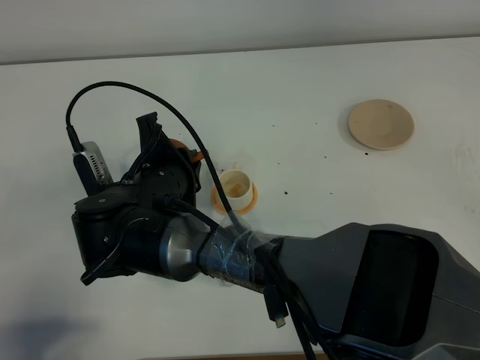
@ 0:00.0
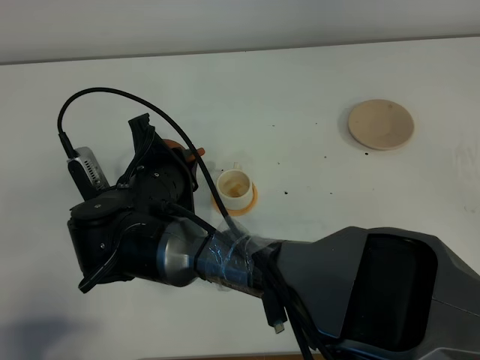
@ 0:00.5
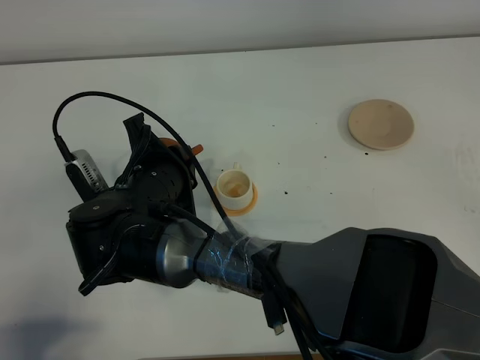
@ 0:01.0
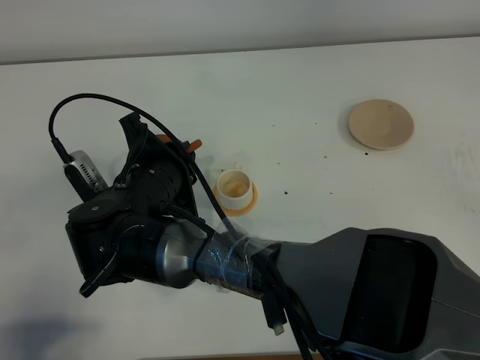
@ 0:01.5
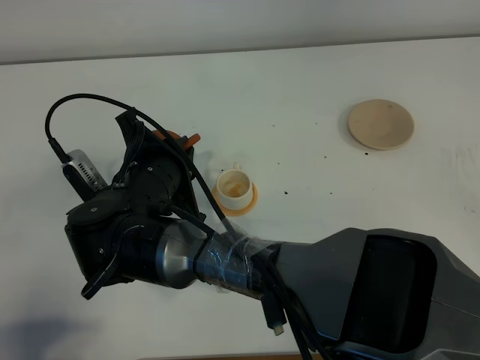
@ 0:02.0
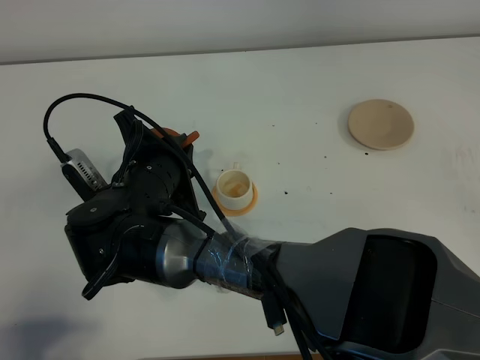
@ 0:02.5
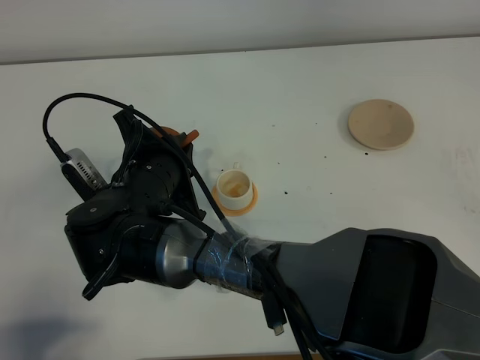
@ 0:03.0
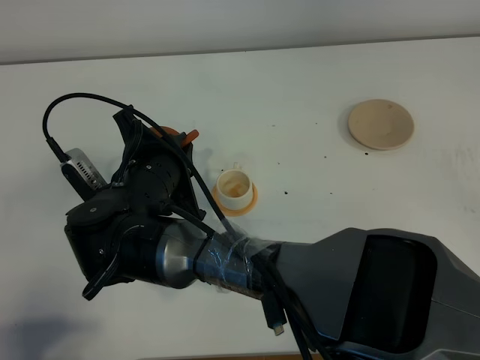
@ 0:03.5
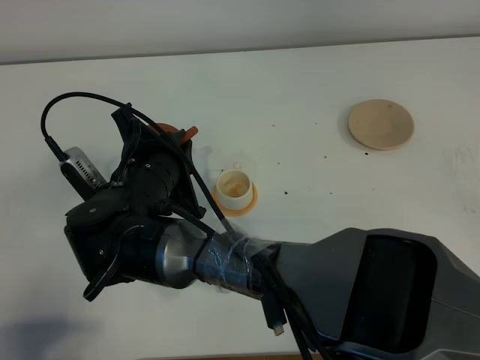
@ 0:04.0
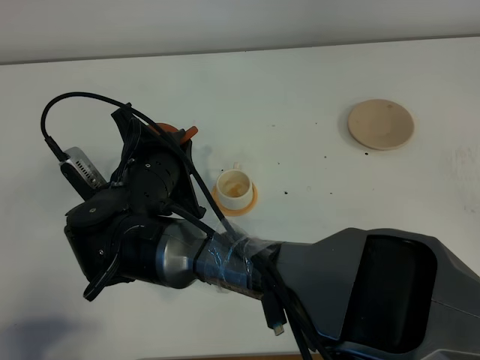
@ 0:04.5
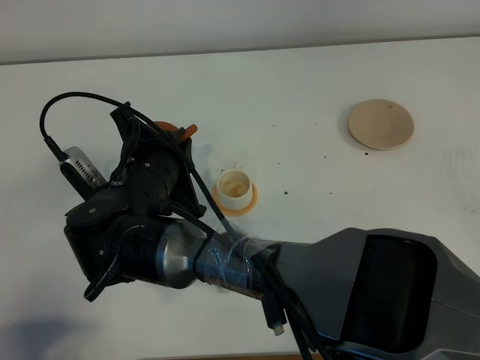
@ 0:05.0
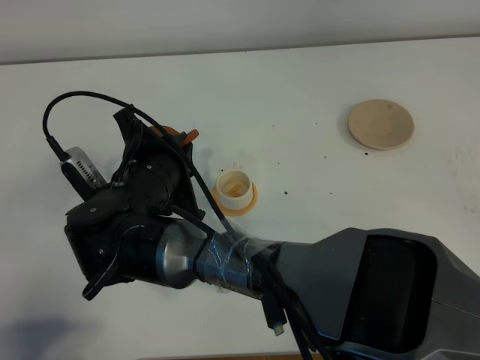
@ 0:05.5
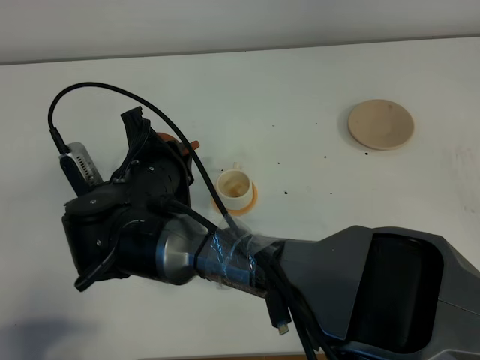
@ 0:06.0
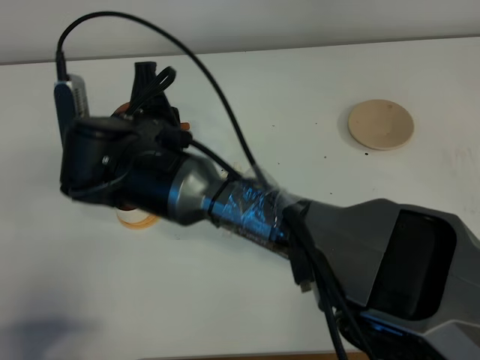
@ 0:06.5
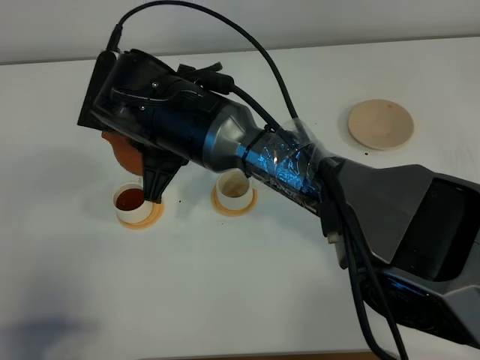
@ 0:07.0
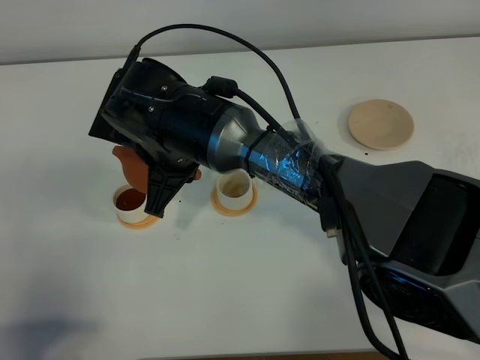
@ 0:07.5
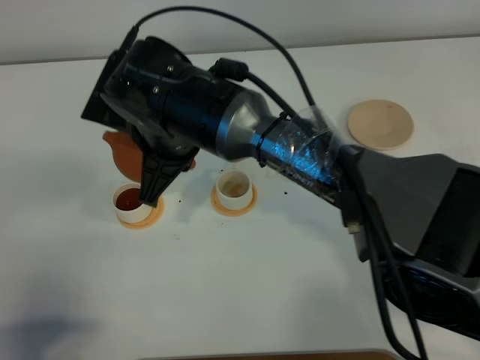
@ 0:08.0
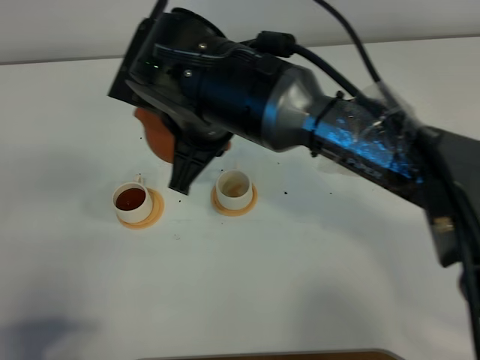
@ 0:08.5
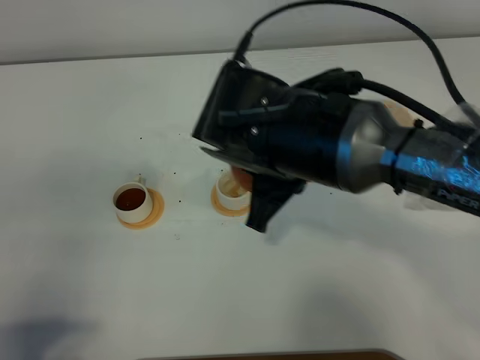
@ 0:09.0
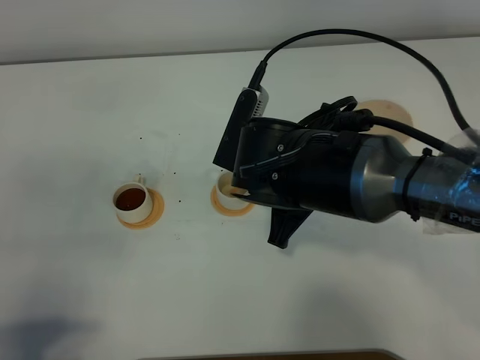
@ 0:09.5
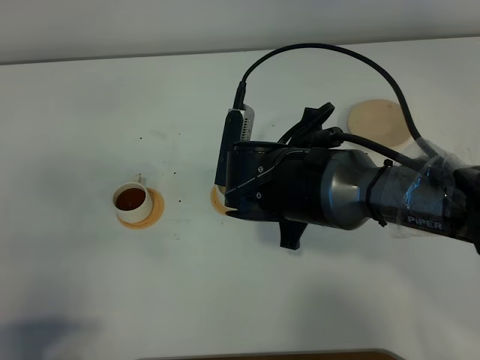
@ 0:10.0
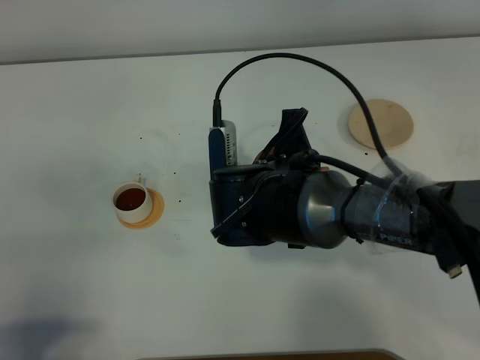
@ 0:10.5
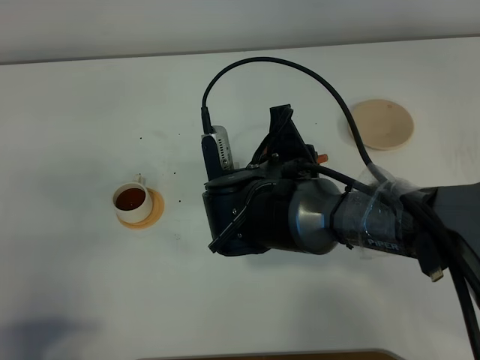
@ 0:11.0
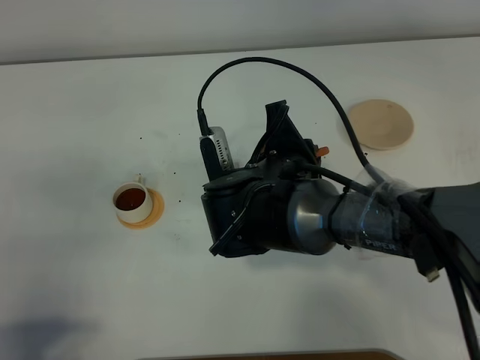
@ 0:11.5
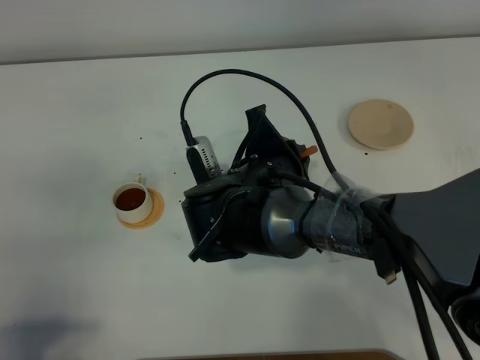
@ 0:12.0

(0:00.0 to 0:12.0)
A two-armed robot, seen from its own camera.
Task of the whole recording: grasp the brown teapot and pour the tea into the two white teacups one by one, put the brown teapot back in its original place.
Step, 0:00.0 - 0:07.0: Pour tea into the teacup with the right gripper.
0:00.0 - 0:02.0: There are only small adjustments of the grippers.
0:02.0 - 0:04.0: Neither gripper changes place.
0:04.0 - 0:06.0: The grippers make only small movements.
0:06.0 - 0:08.0: The right gripper moves upward and forward, approximately 10 cm.
0:08.0 - 0:10.0: The right gripper moves to the right and downward, about 15 cm.

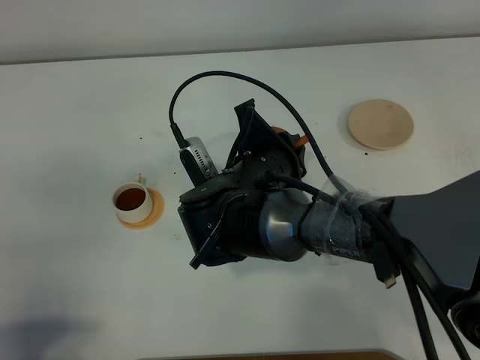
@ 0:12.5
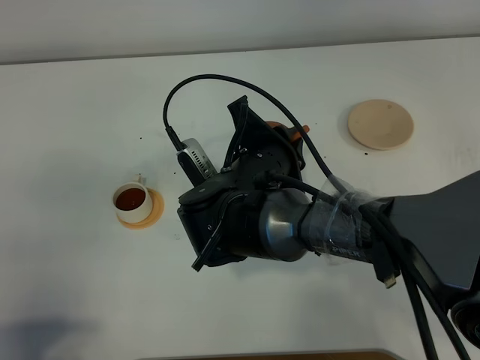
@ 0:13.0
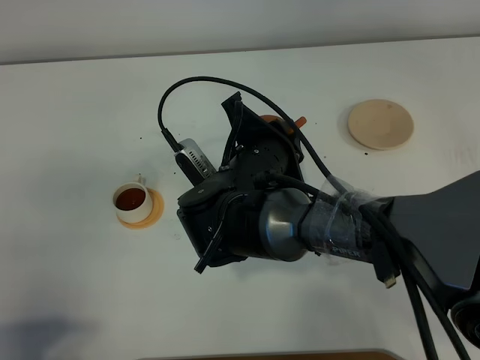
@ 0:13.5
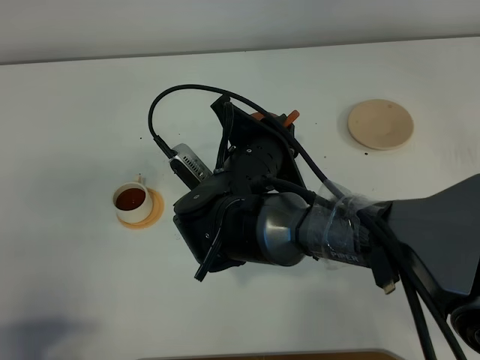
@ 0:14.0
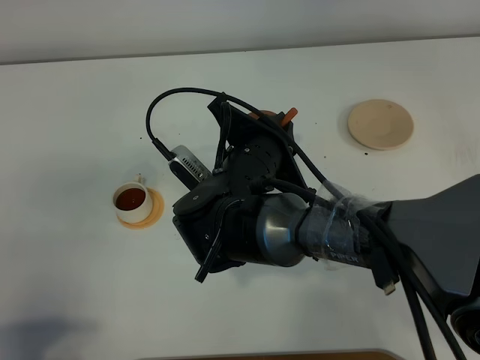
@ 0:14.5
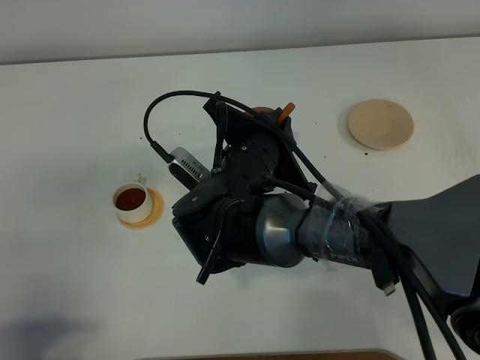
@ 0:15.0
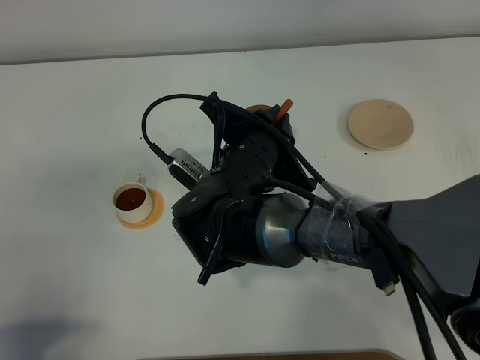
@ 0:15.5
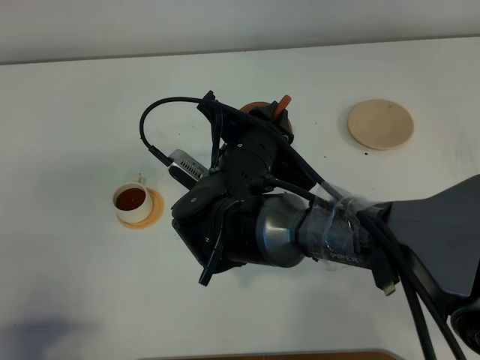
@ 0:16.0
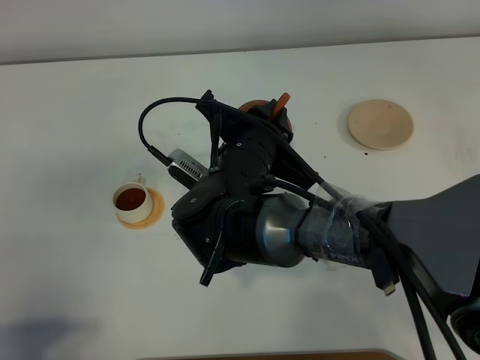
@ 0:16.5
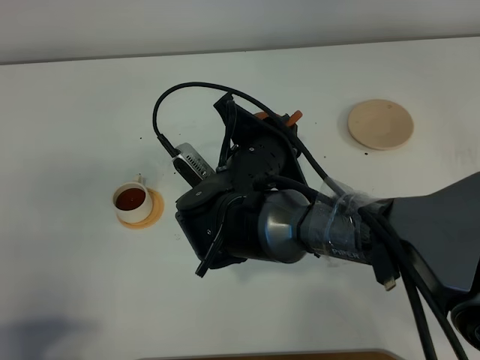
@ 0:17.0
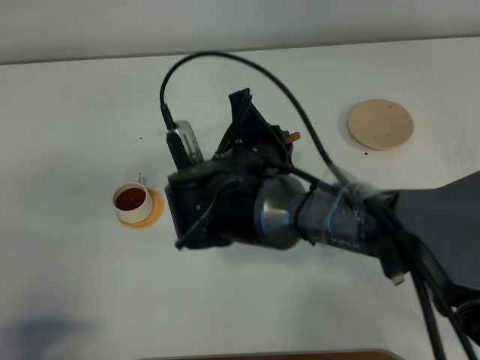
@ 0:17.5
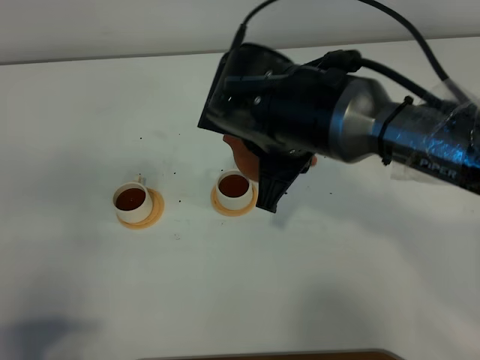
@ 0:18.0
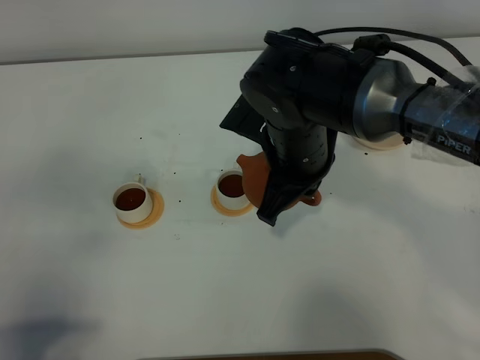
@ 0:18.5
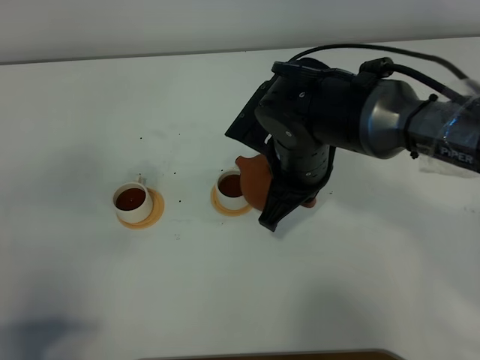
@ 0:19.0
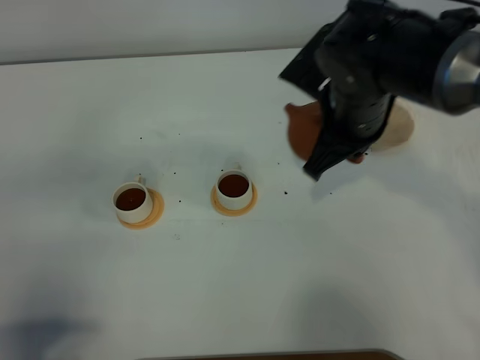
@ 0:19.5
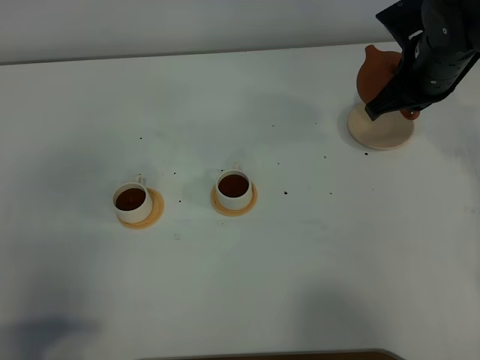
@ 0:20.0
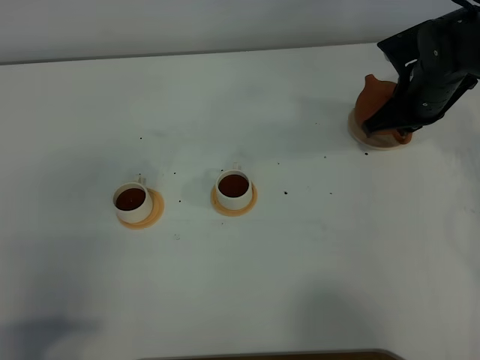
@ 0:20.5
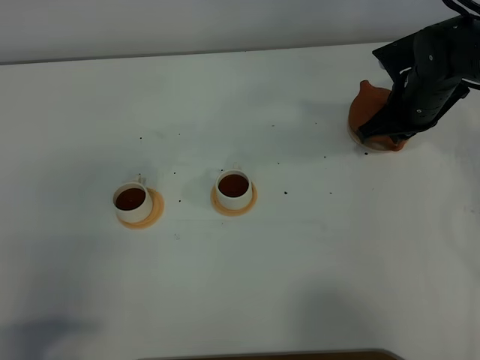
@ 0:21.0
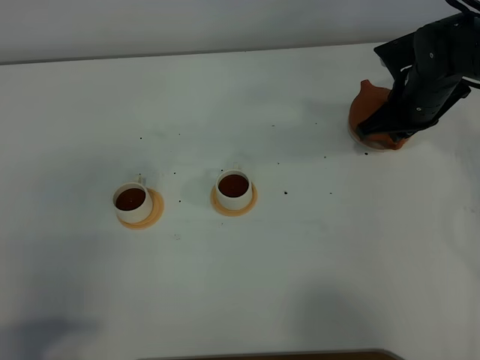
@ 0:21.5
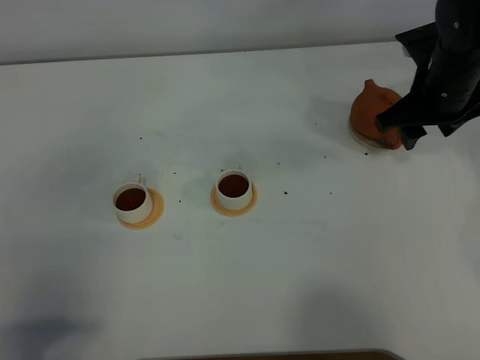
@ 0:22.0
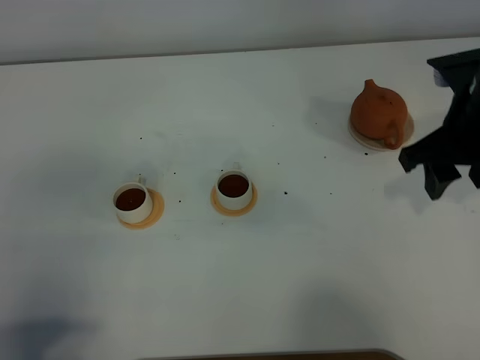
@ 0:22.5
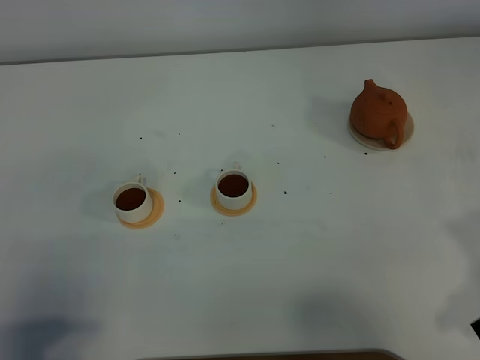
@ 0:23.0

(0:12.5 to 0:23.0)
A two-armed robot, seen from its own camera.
Task of the whole recording: grasp the brown teapot and pour the tea into the two white teacups one by one, put the brown teapot back in its original place.
Step, 0:12.5 - 0:19.0: Pour tea into the teacup with the right gripper.
0:12.5 - 0:14.5: The grippers make only small movements.
0:14.5 - 0:16.5: The grippers move only a little.
0:16.5 - 0:19.0: The right gripper moves to the right, about 5 cm.
0:19.0 - 0:21.0: The right gripper heads forward and to the right, covering roughly 20 cm.
0:21.0 - 0:23.0: The right gripper shifts about 30 cm backward, and opens up.
